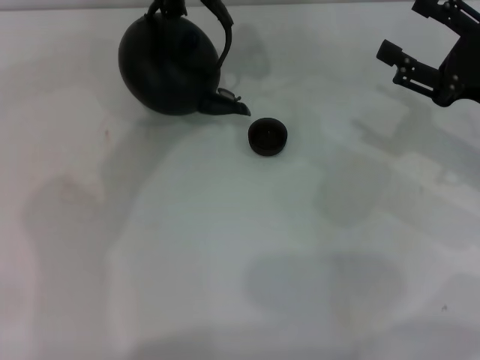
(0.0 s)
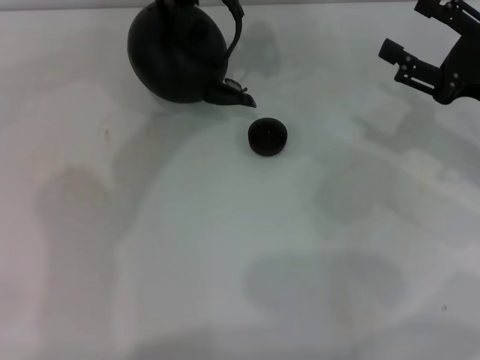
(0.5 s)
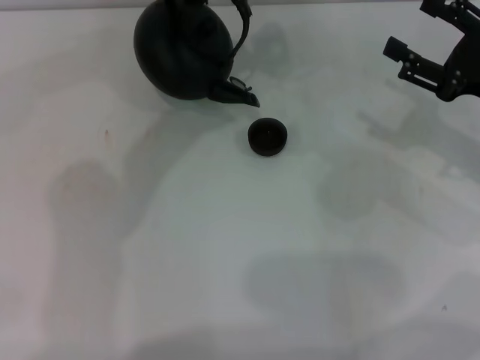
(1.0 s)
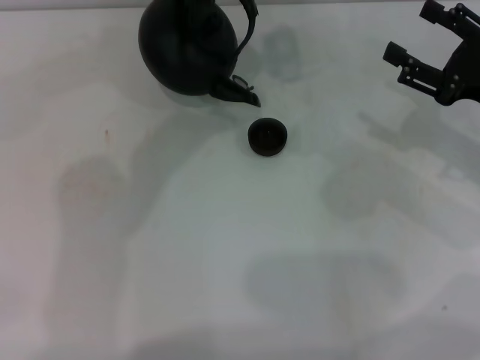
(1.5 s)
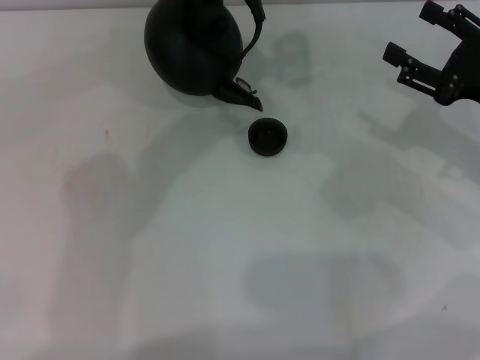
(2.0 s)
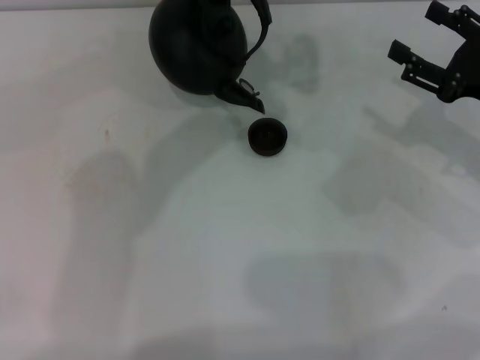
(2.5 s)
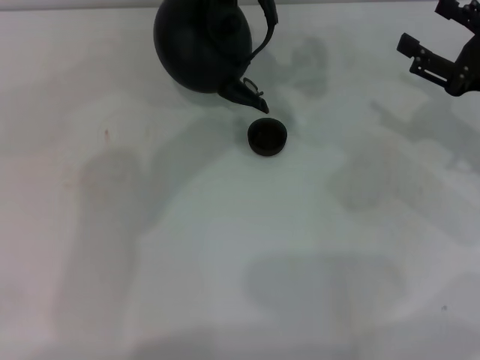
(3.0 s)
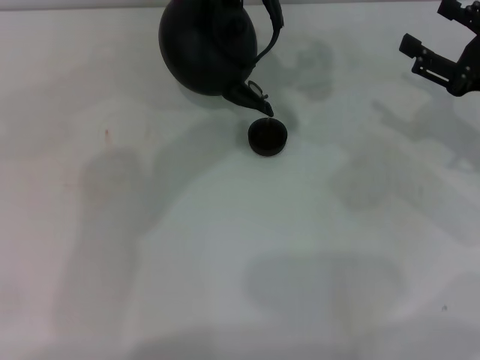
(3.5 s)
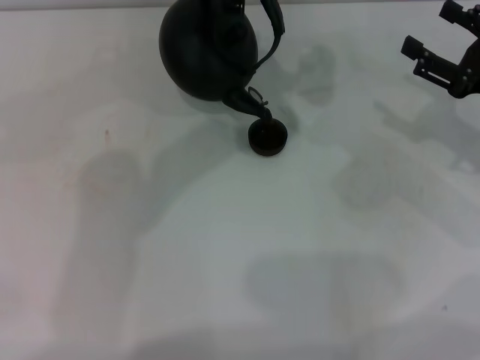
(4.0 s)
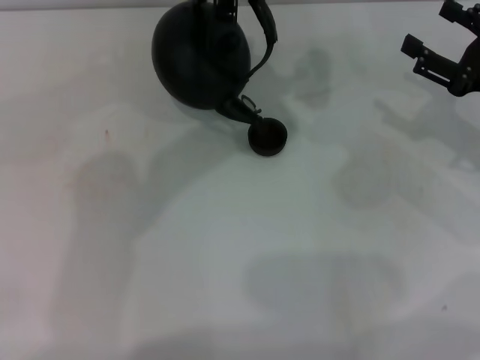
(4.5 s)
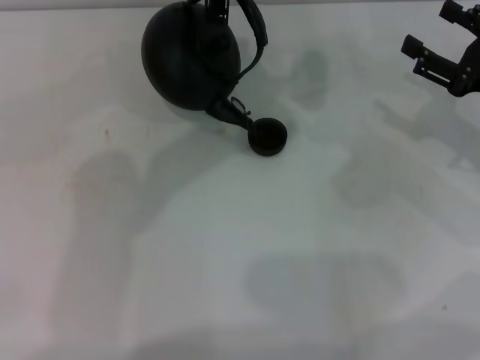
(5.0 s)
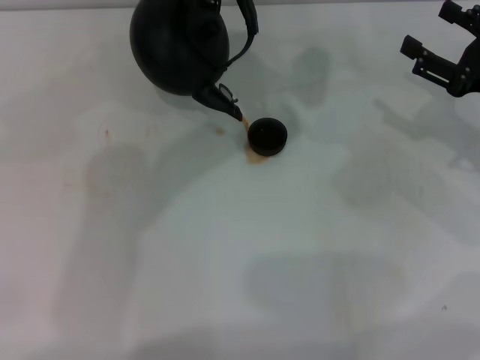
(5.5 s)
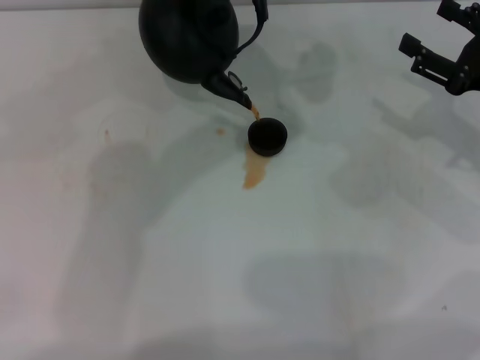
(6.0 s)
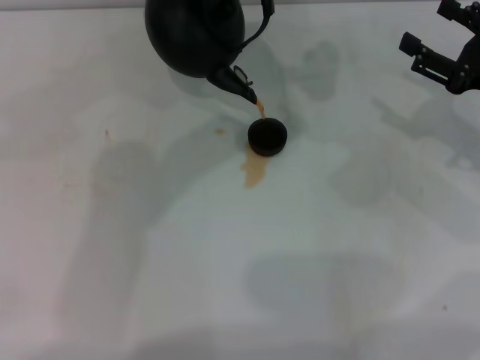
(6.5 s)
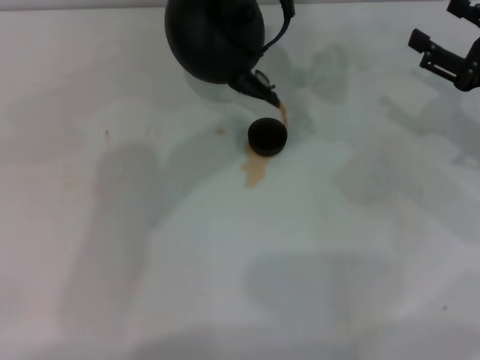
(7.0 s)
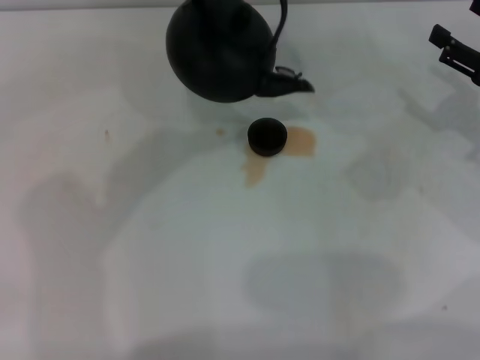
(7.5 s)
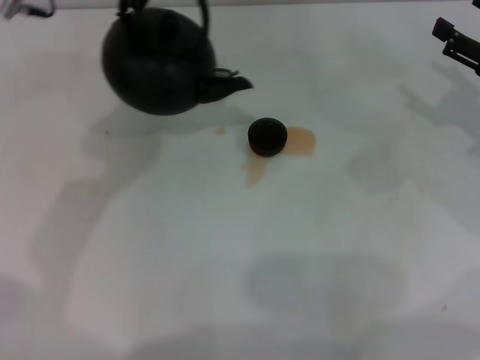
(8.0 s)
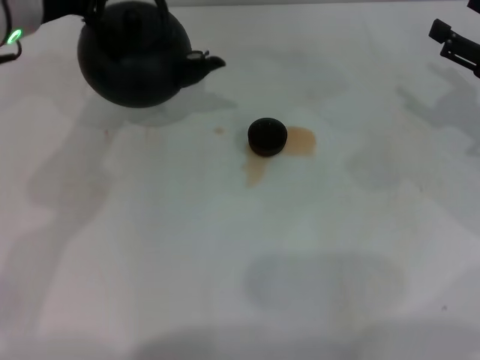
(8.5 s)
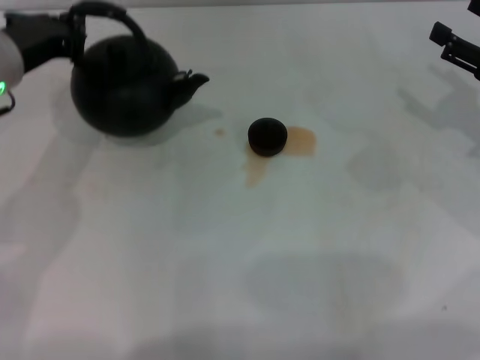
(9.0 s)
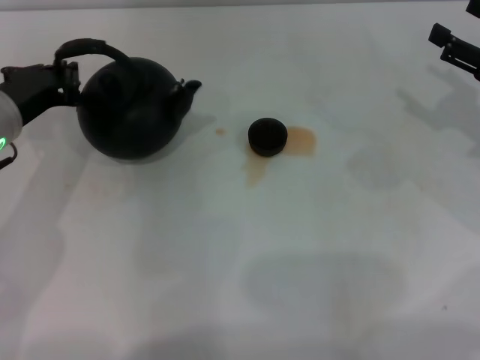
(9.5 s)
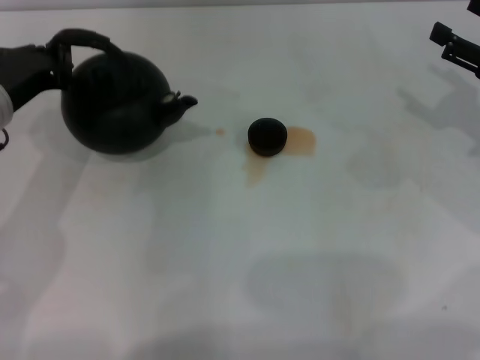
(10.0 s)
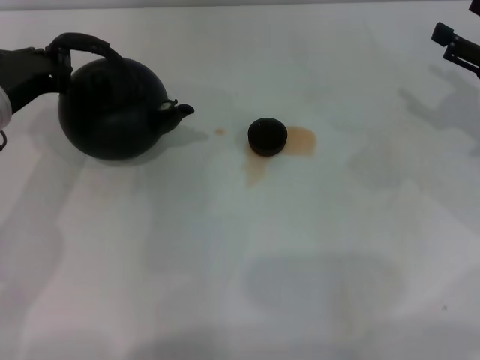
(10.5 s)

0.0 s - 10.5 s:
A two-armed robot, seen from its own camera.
Task of the whole recording: Grasp the handle of the teapot with one hand and pour tea into the teacup.
Step, 0.0 s - 7.5 s: Pour tea into the teacup with the left gripper.
0.0 s - 2.0 s: The left gripper moves to the right, approximately 5 cm.
2.0 s - 6.5 s: The grippers move only a little.
6.5 s - 8.5 s: The left gripper heads to the left, covering about 20 cm.
8.5 s - 10.5 s: The left gripper is displaced downward and backward by some 10 cm.

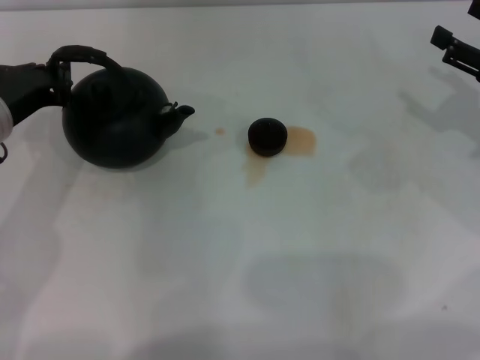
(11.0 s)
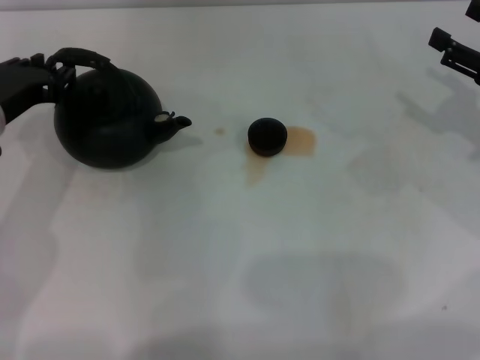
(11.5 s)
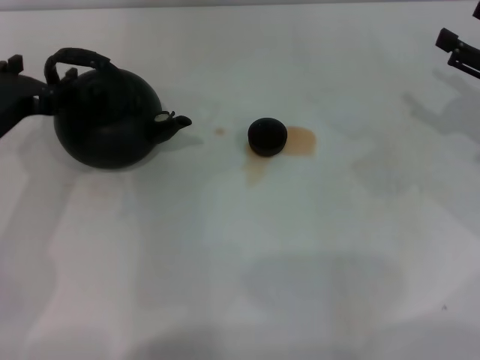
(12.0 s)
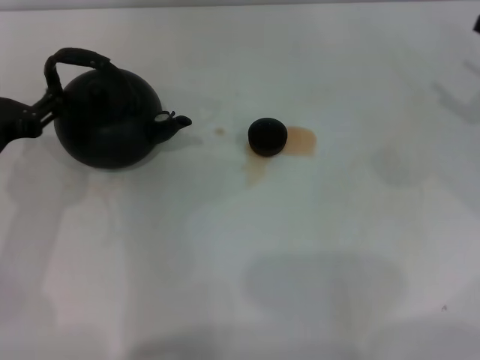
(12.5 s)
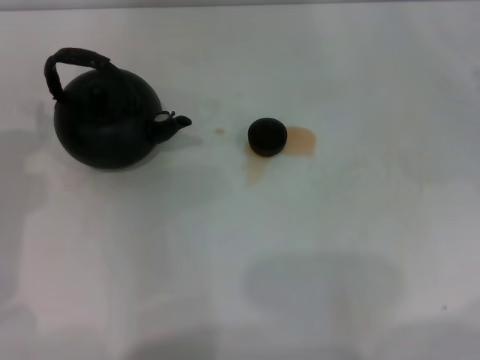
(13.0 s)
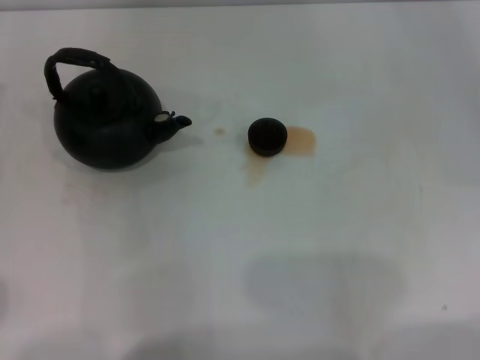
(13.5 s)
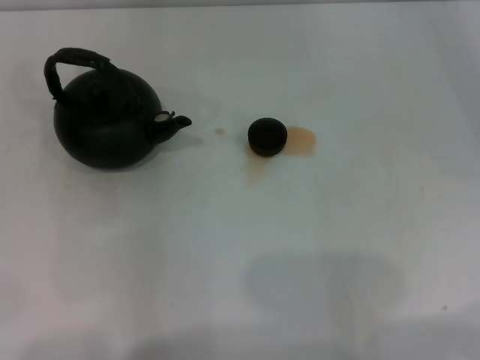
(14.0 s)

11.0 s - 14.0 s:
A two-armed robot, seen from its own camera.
Task of the whole recording: Grasp the handle of the teapot with one hand and pour tea into the teacup.
11.0 s - 12.5 s: The left gripper shifts approximately 5 cm backward, and opens up.
12.5 s - 14.0 s: The left gripper moves to the left and upward, some 15 cm.
